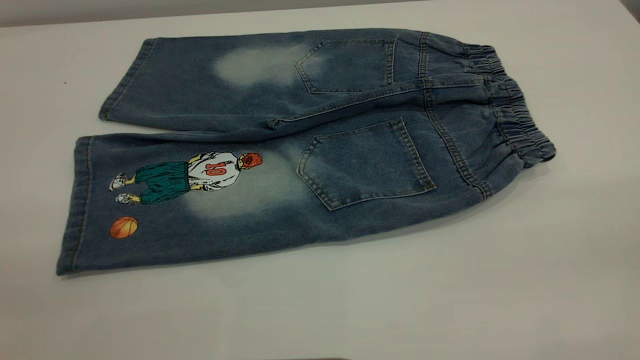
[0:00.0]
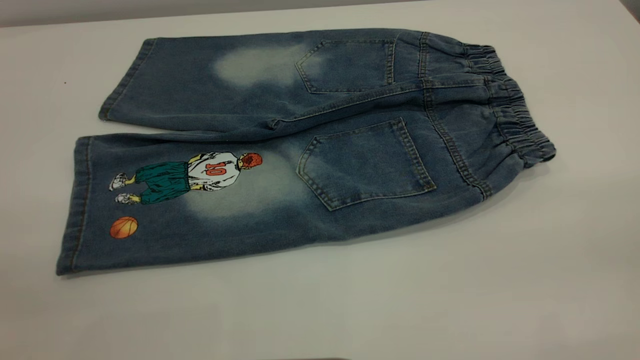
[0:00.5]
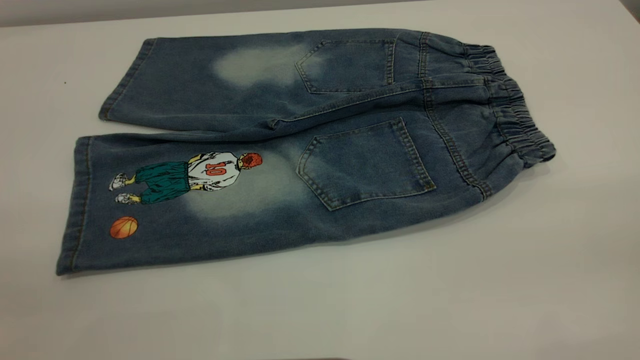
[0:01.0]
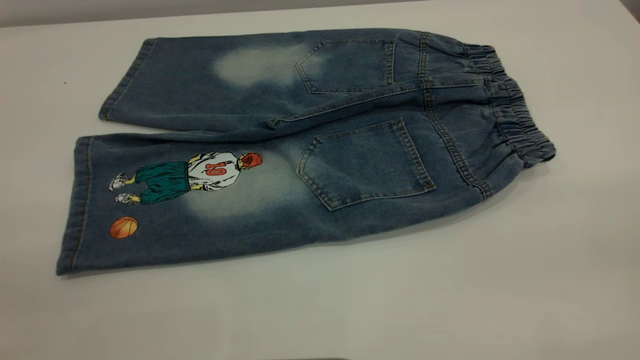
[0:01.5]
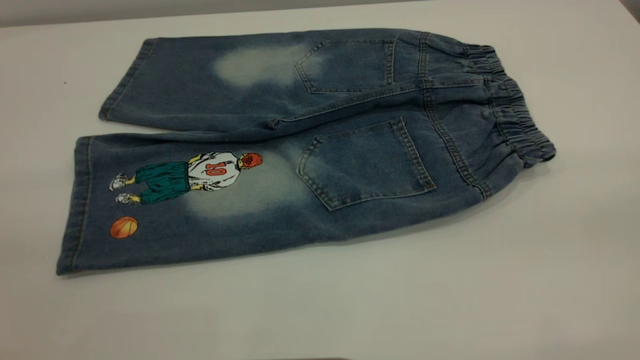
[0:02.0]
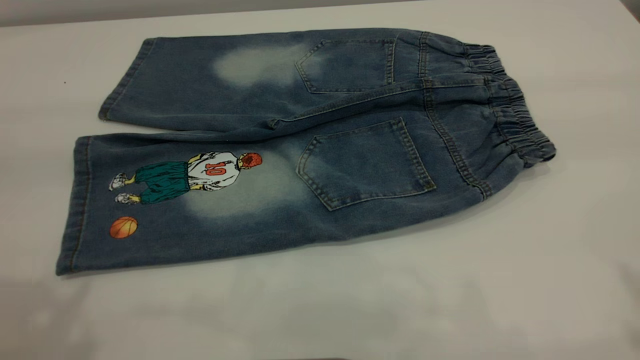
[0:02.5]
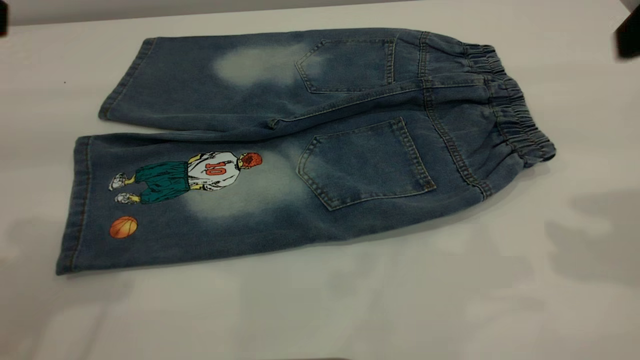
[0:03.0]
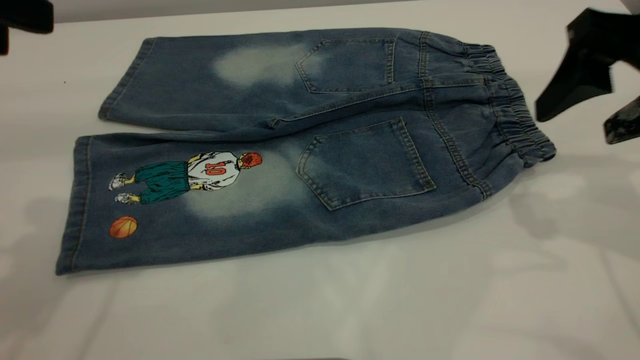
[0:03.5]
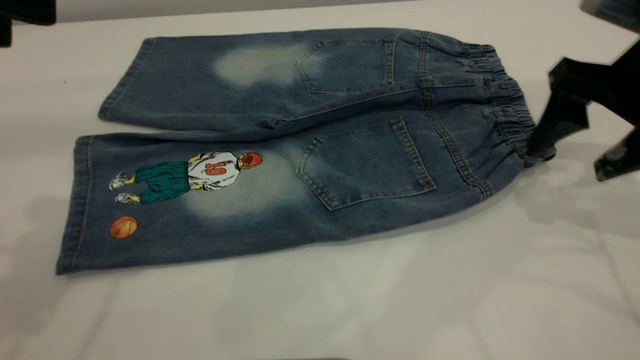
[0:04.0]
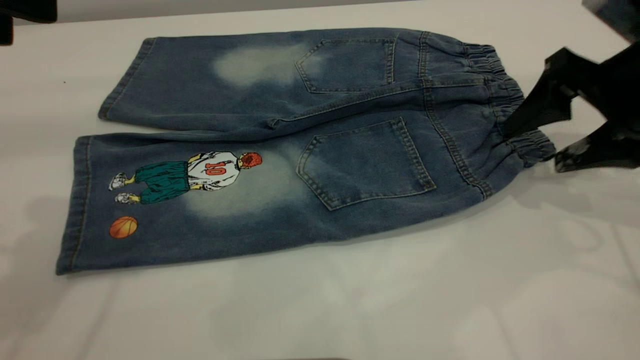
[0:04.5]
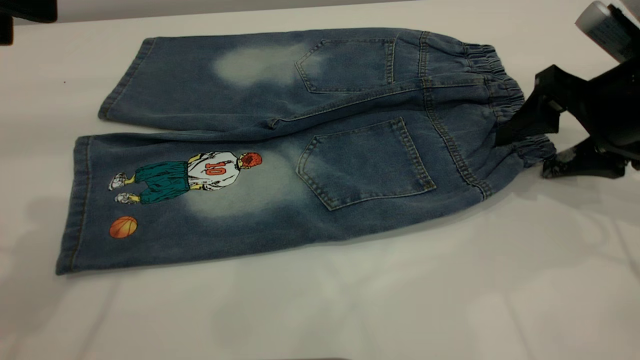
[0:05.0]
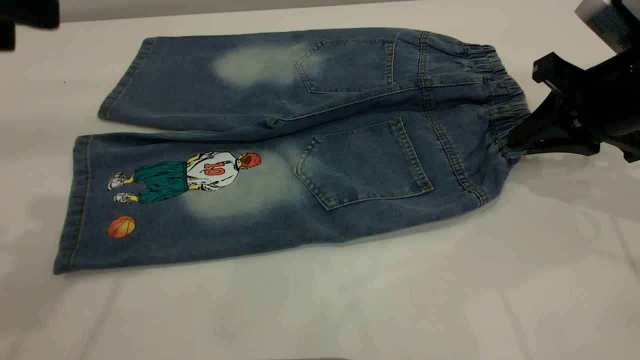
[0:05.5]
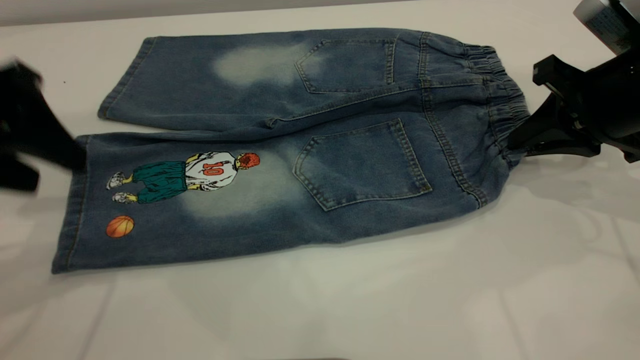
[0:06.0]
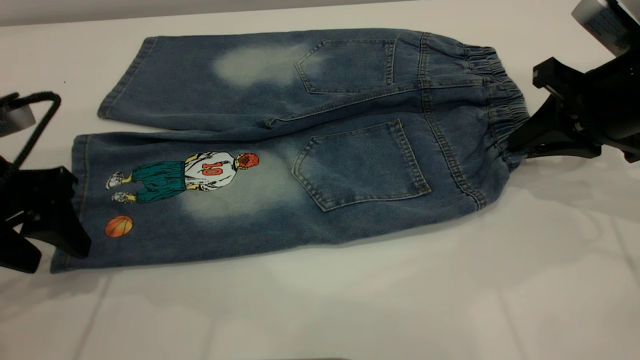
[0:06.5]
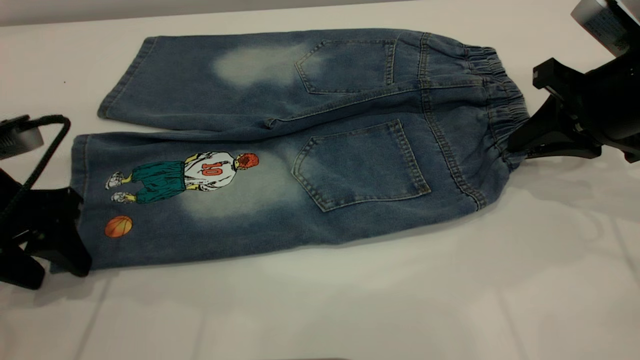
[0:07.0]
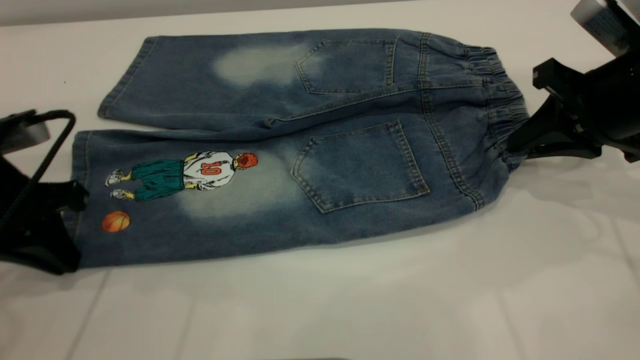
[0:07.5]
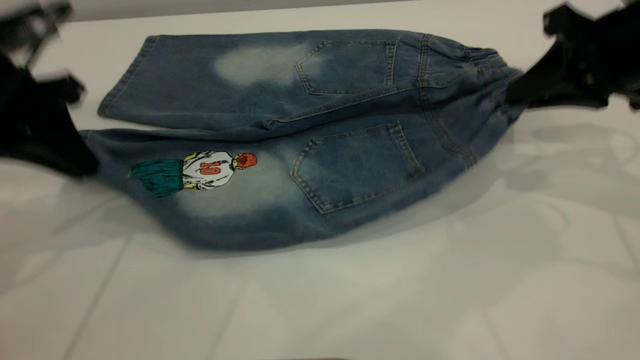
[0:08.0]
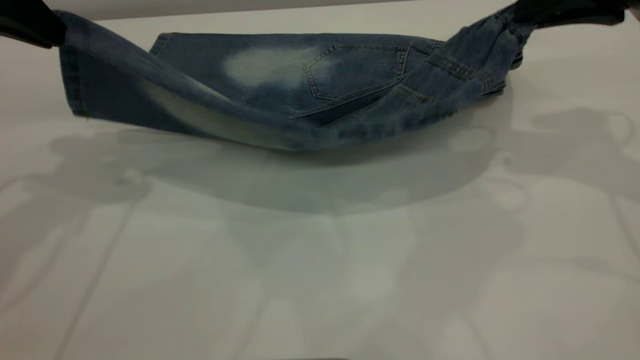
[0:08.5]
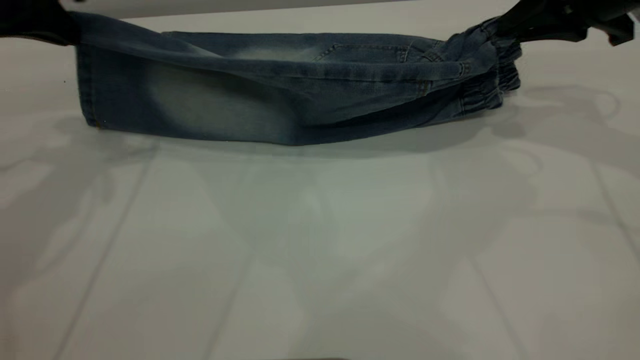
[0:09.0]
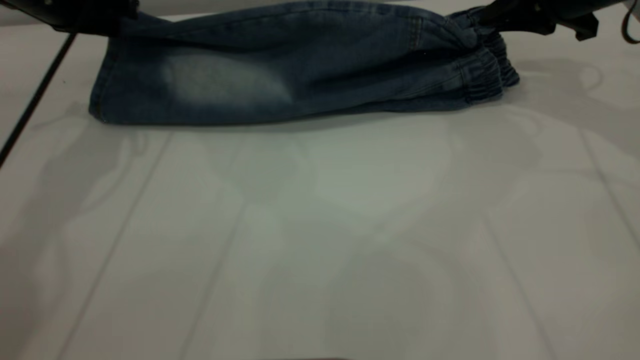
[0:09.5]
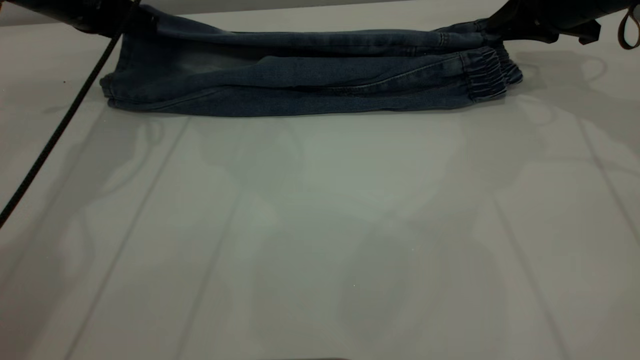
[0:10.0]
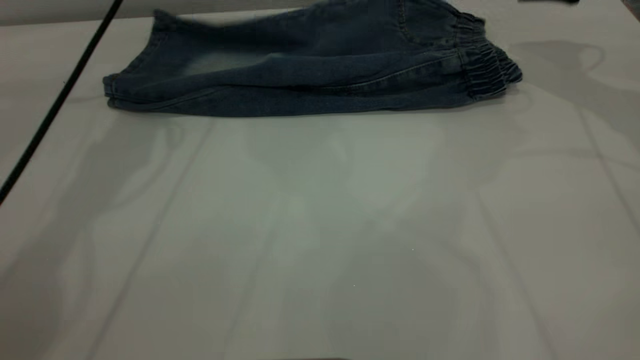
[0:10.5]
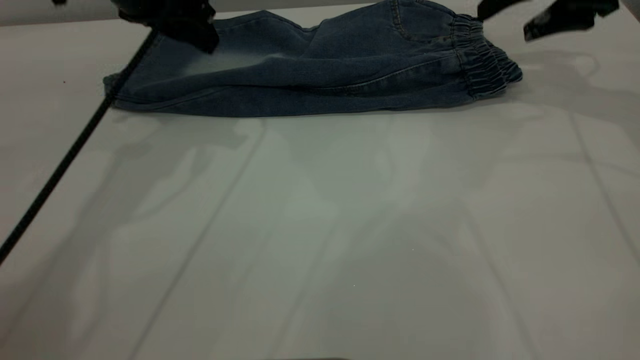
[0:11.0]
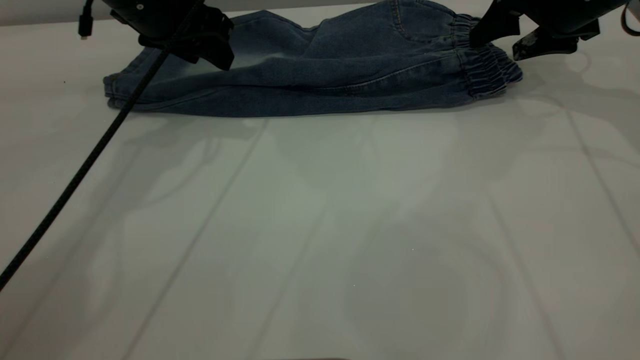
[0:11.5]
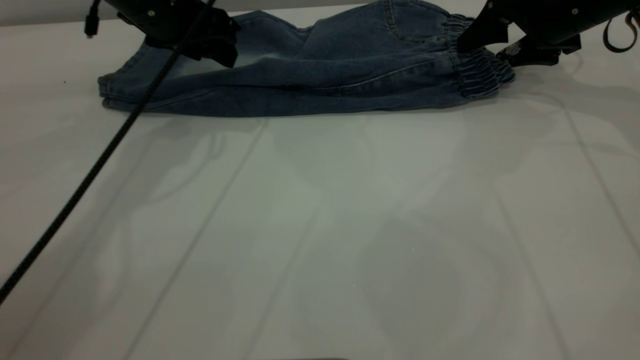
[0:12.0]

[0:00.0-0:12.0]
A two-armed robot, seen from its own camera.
Step, 0:00.0 to 0:10.5: Fold the bottom of the pants upward.
0:02.0 to 0:04.0: The left gripper goes some 20 cm forward. Meanwhile the right gripper travels forward and downward by some 35 cm.
0:04.0 to 0:06.0: The right gripper closes its fingers. Meanwhile the left gripper heads downward, covering some 10 cm.
0:06.0 to 0:08.0: The right gripper shifts roughly 5 cm upward. The left gripper moves forward, about 5 cm, moves roughly 10 cm downward and comes back, and closes.
0:08.0 to 0:10.0: The grippers both shift forward by approximately 15 cm.
0:10.0 to 0:12.0: The left gripper shifts some 10 cm to the right, and opens up; the right gripper reaches about 5 cm upward, then returns, and opens.

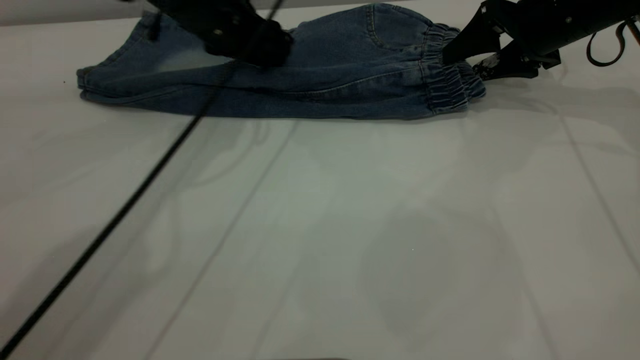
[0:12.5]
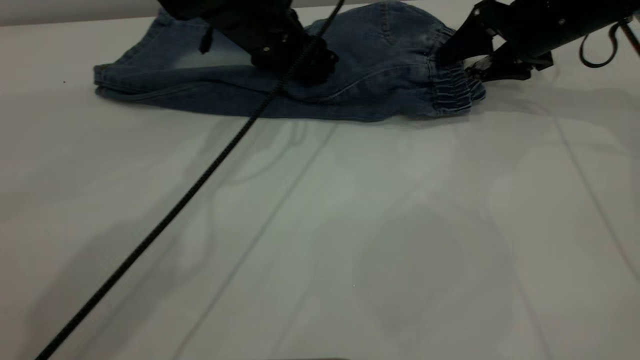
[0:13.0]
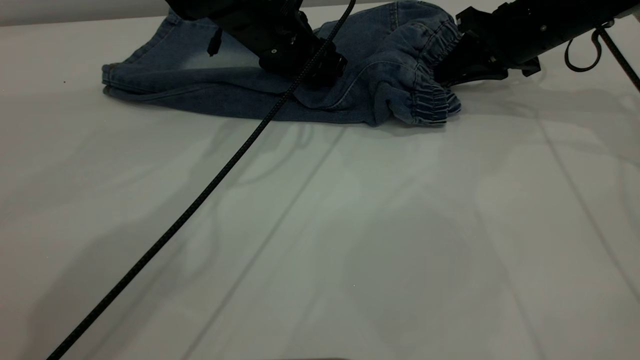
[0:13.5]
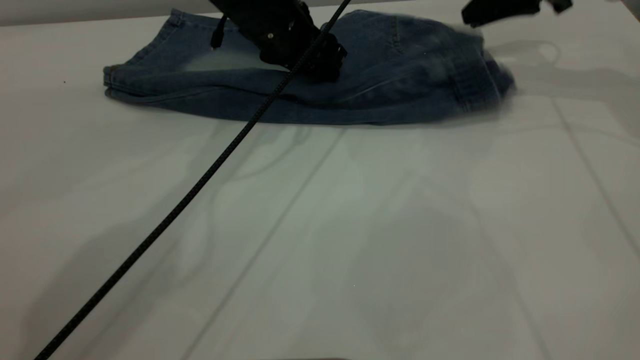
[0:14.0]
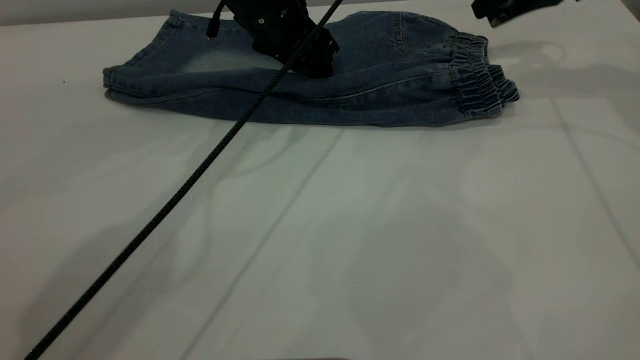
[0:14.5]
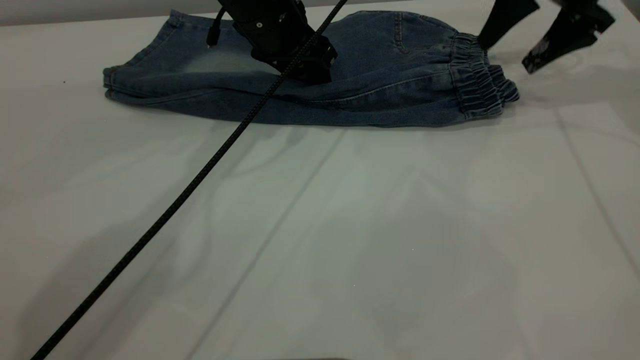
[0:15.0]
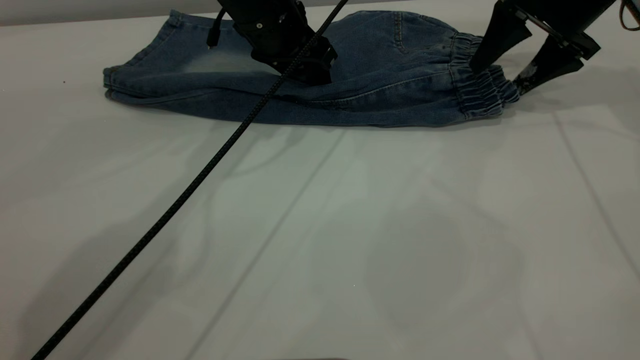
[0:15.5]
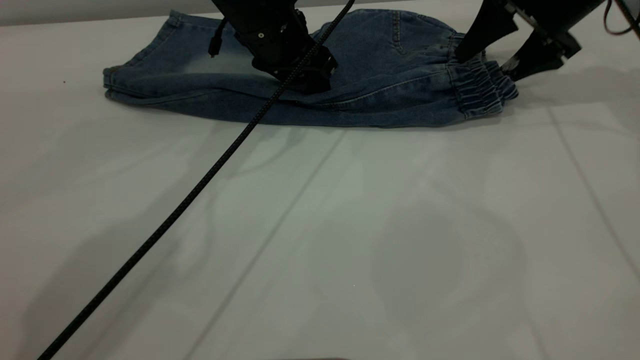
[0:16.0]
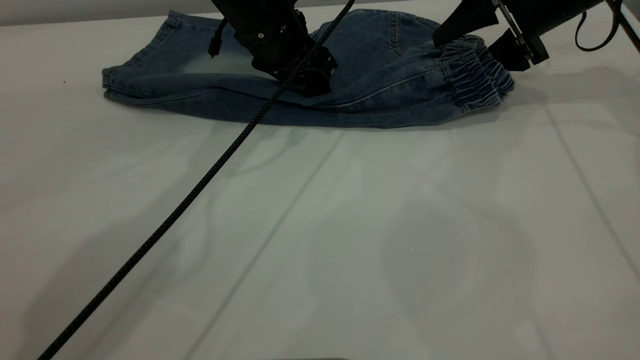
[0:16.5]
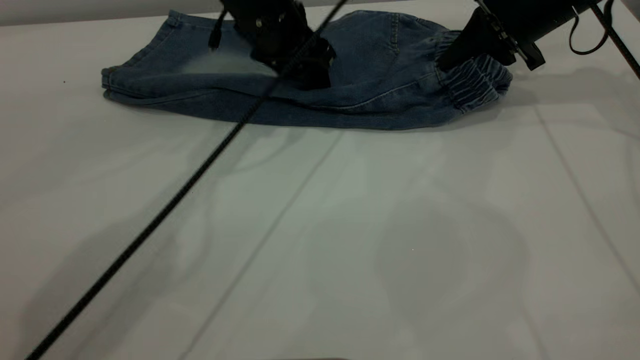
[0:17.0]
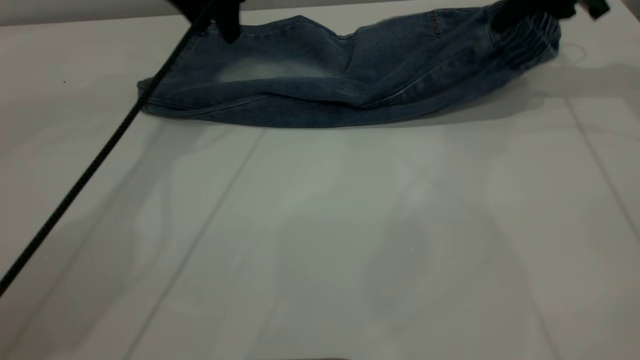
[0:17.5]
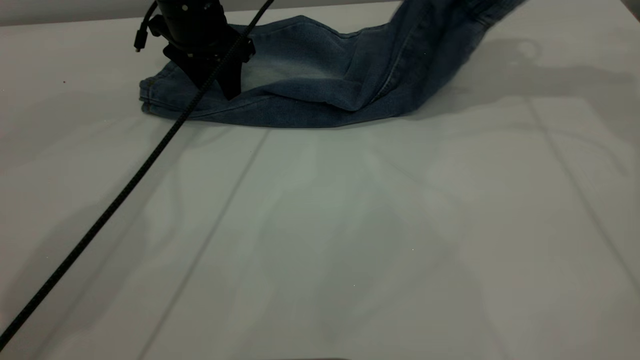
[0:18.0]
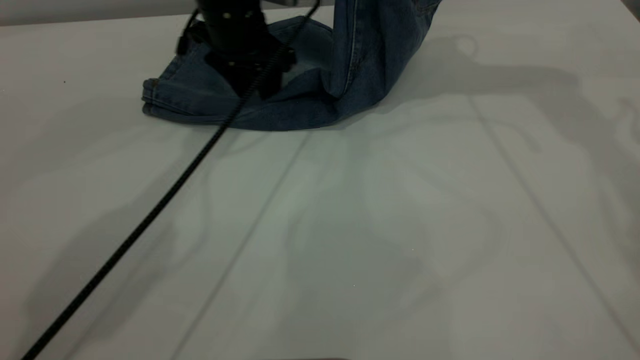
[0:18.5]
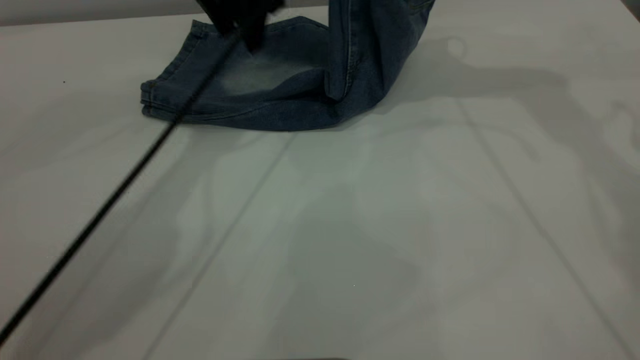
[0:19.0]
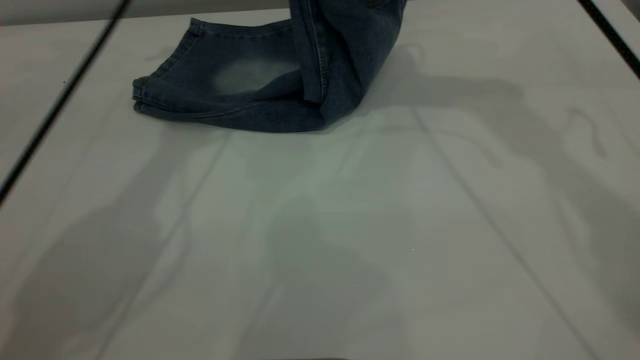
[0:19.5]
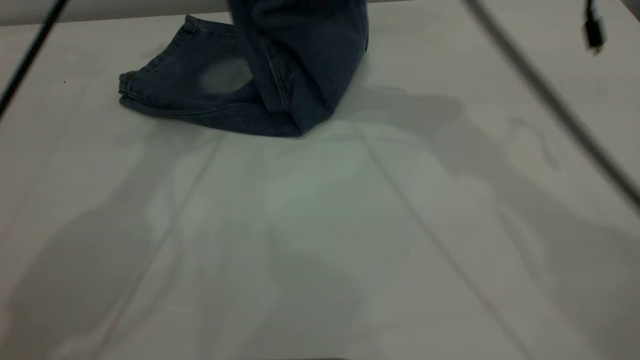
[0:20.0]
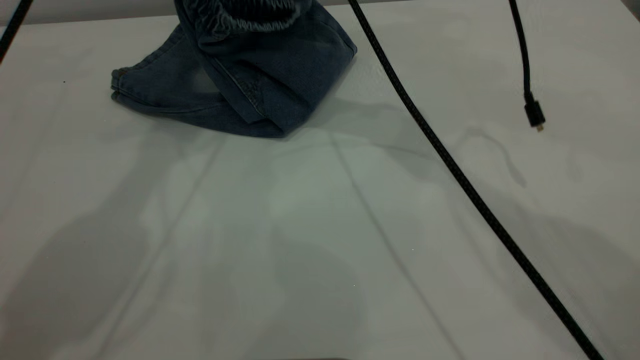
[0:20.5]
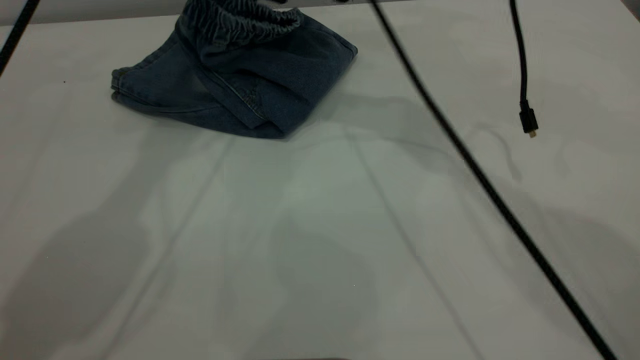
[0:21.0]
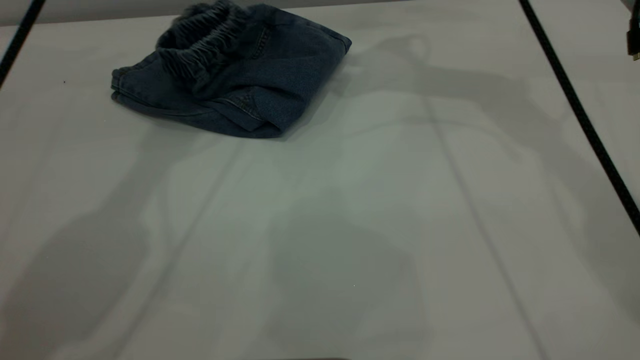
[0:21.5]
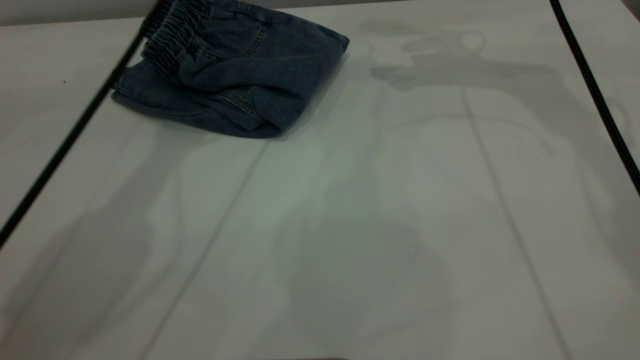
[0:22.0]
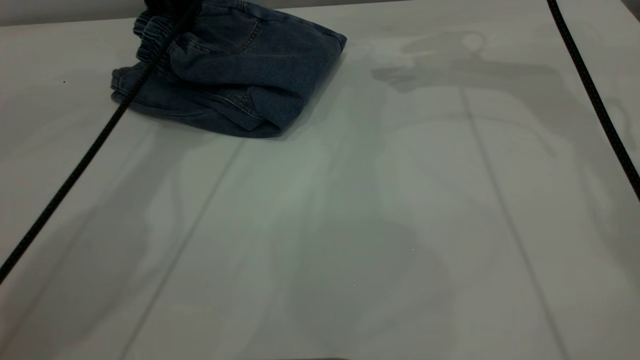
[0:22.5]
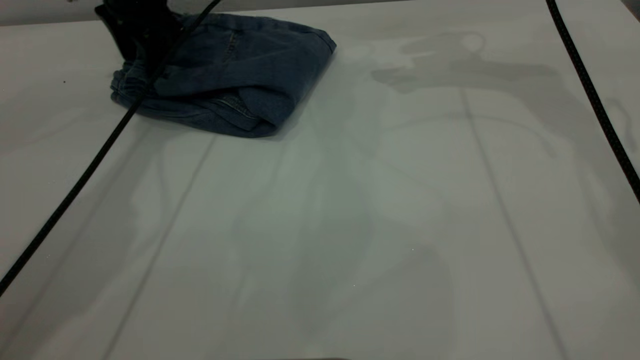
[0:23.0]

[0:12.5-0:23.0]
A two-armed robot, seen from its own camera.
Step, 0:12.5 to 0:21.5: Fold your pants from right to left.
0:12.5 to 0:14.5: The left gripper moves roughly 5 cm, while the right gripper goes roughly 10 cm upward, and closes.
0:14.5 to 0:16.5: The right gripper goes roughly 5 cm downward, and opens.
0:16.5 to 0:19.0: The left gripper swings up and down, roughly 10 cm each way, with 2 reversals. Meanwhile the right gripper travels upward and to the left by roughly 20 cm, and closes.
0:19.0 to 0:21.0: The right gripper travels to the left and downward by about 15 cm, and opens up. Meanwhile the left gripper shifts some 20 cm upward.
0:21.0 to 0:23.0: The left gripper is displaced downward by roughly 20 cm, while the right gripper heads to the right, covering some 15 cm.
